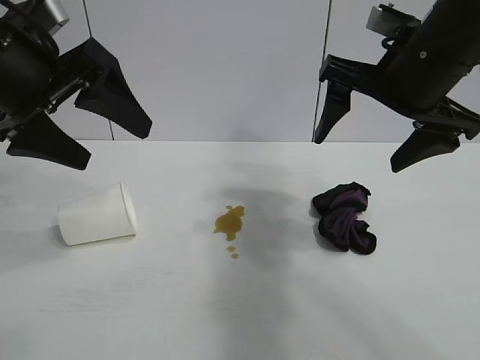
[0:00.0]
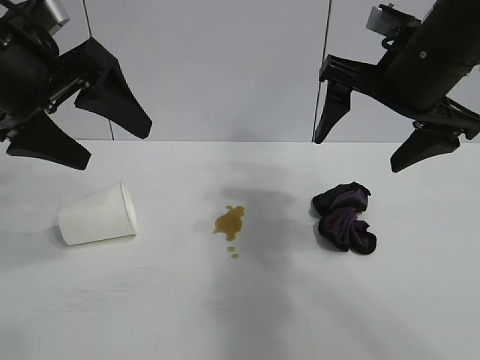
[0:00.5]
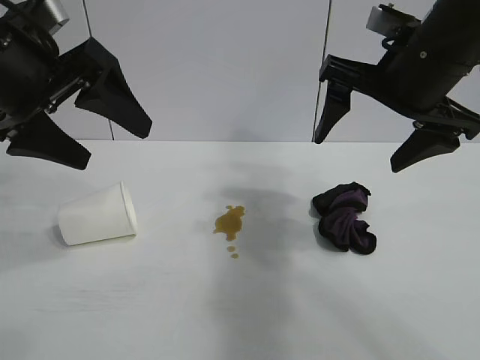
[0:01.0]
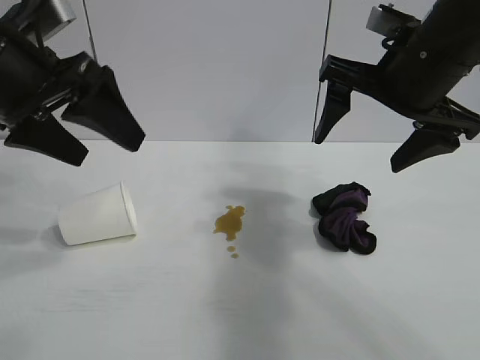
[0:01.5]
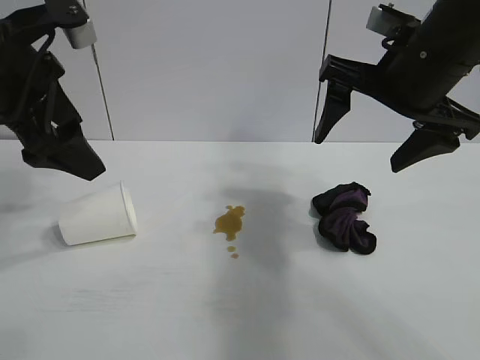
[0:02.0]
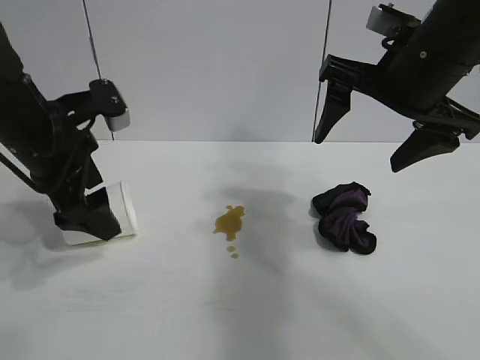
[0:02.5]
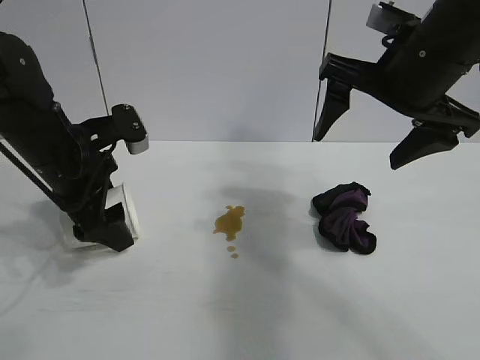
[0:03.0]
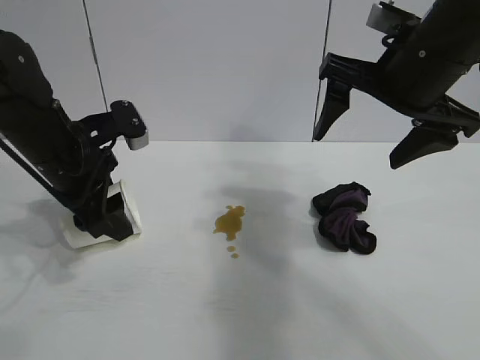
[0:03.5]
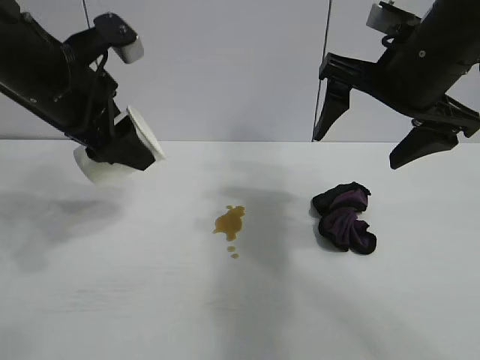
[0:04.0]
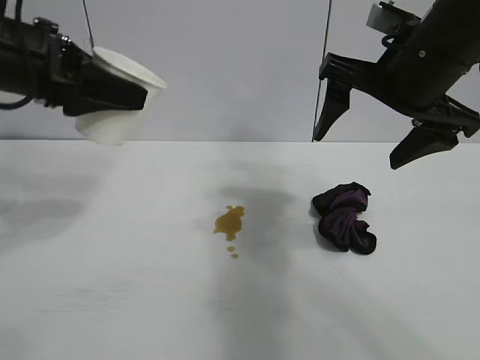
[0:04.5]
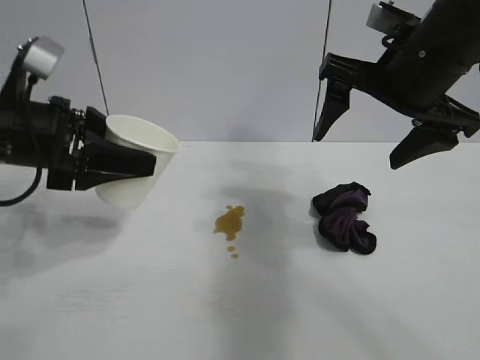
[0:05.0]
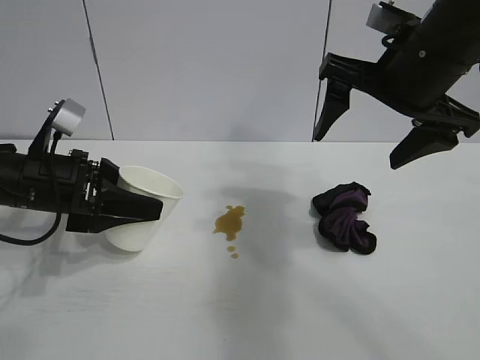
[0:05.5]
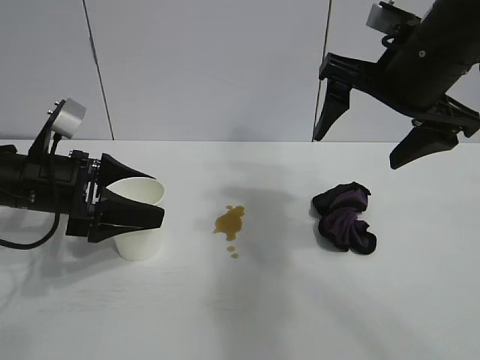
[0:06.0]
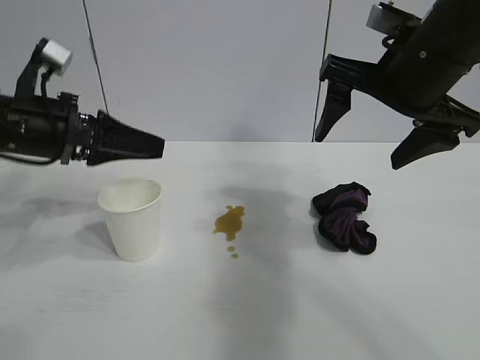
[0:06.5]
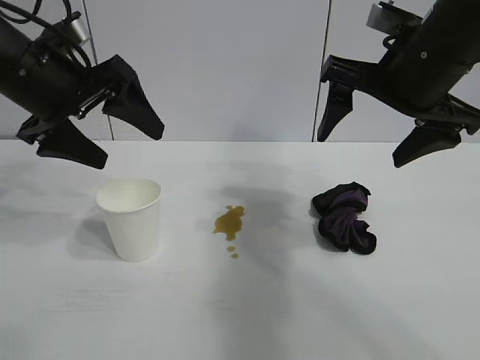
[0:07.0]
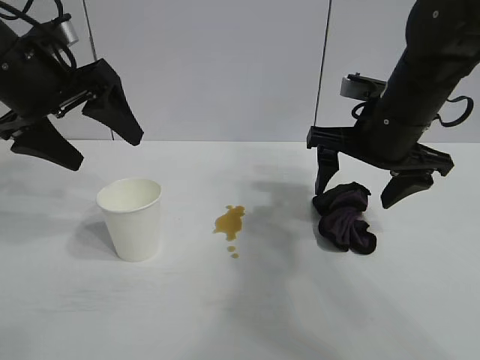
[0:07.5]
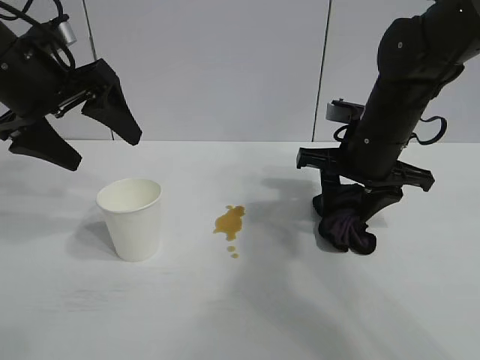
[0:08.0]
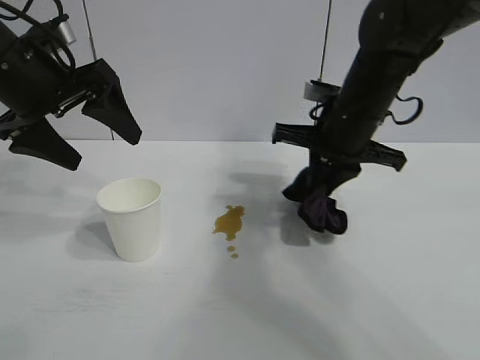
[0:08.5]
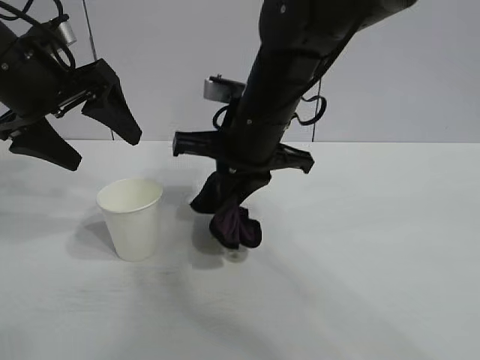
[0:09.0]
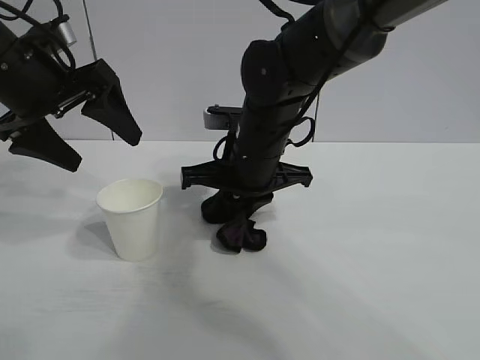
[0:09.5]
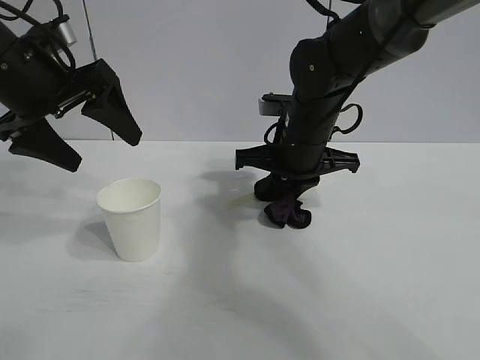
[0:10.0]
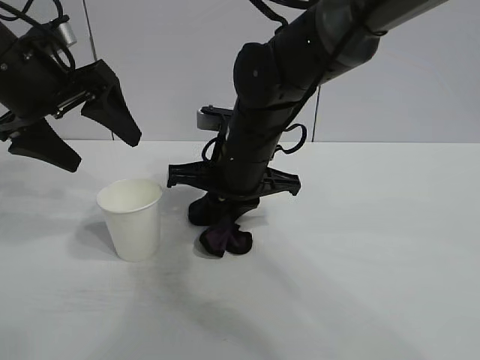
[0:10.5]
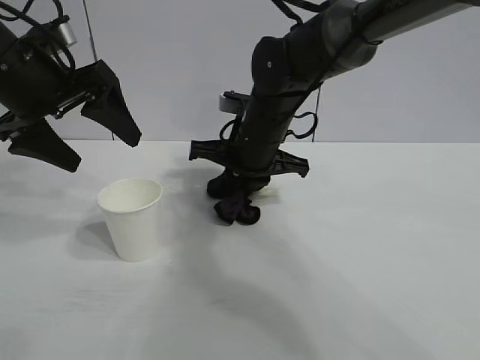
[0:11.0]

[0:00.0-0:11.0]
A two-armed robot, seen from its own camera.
Task of the whole recording: the left gripper pick up the fallen cup and place it upright, the right gripper grasp the black rag and wipe the stain on the table, the right gripper put the black rag back in its original position.
Step, 0:01.5 to 0:03.0: Grasp the paper cup with left gripper.
Step, 0:03.5 to 0:06.0: Stand the paper cup upright with left gripper.
Step, 0:06.5 to 0:08.0: Grasp the rag with right gripper.
